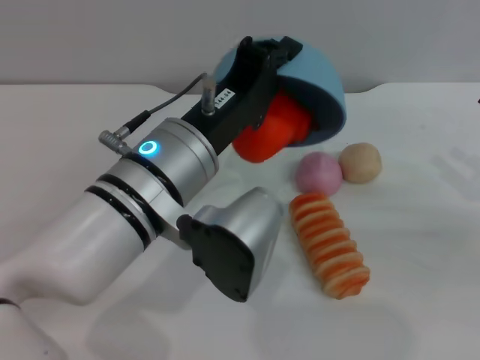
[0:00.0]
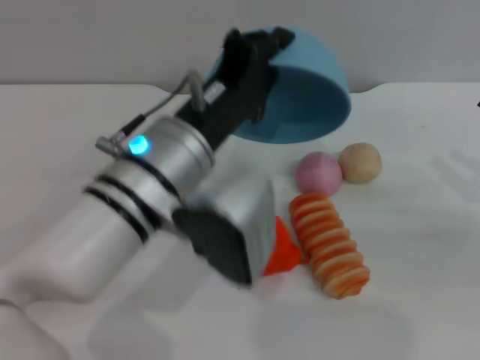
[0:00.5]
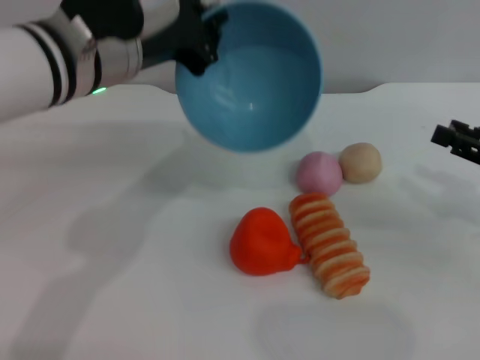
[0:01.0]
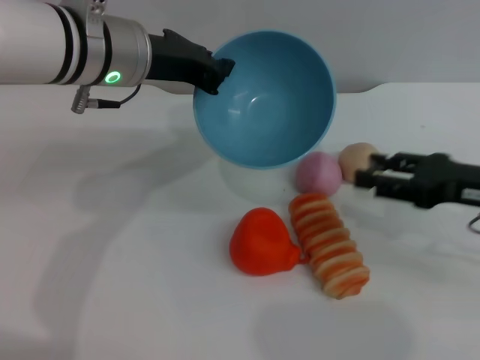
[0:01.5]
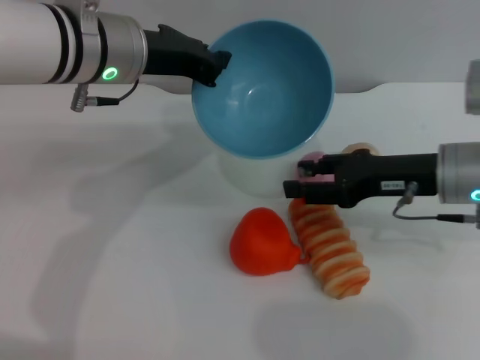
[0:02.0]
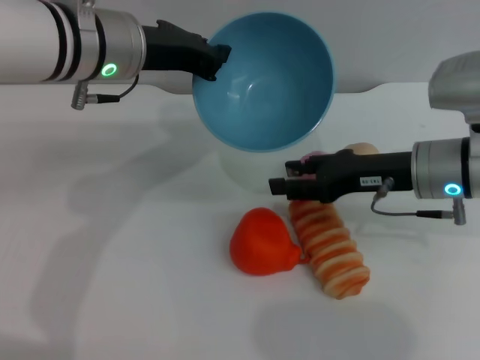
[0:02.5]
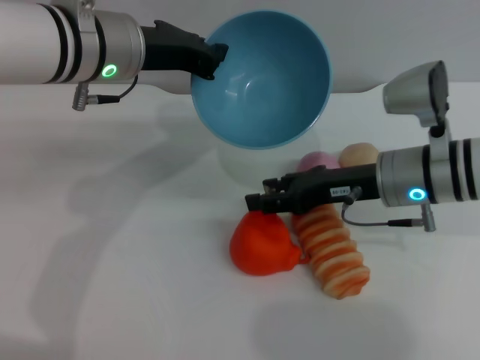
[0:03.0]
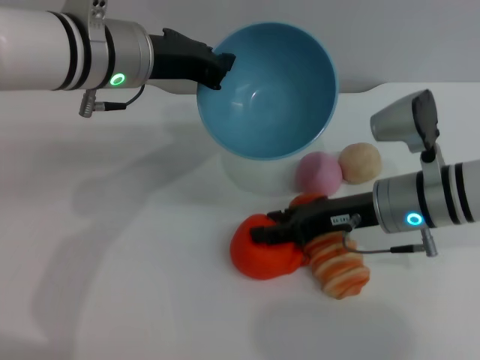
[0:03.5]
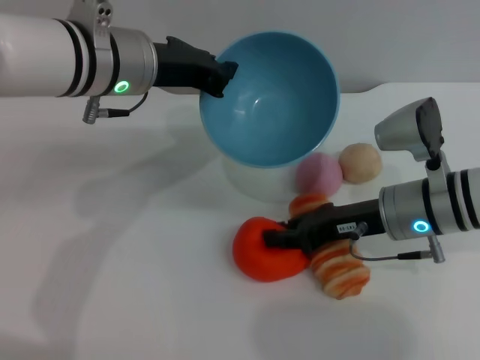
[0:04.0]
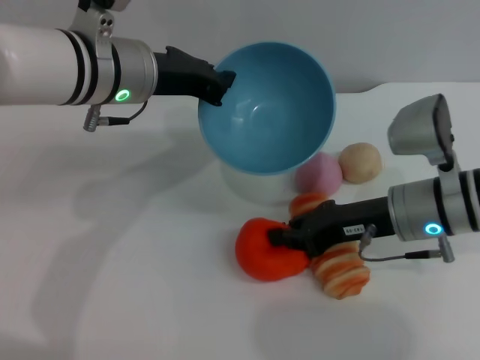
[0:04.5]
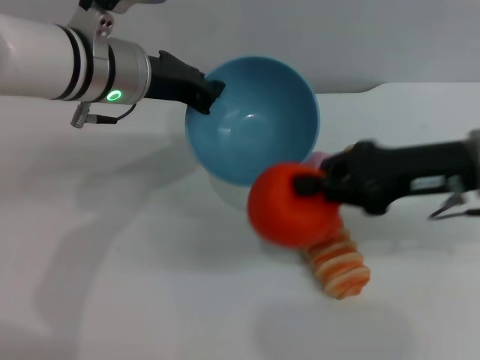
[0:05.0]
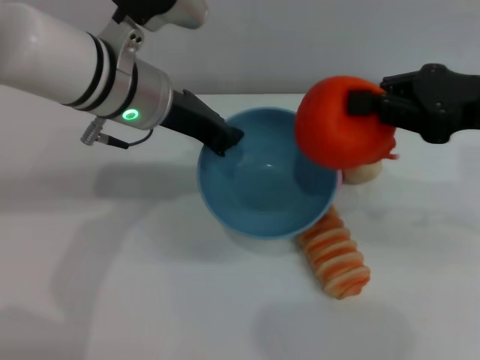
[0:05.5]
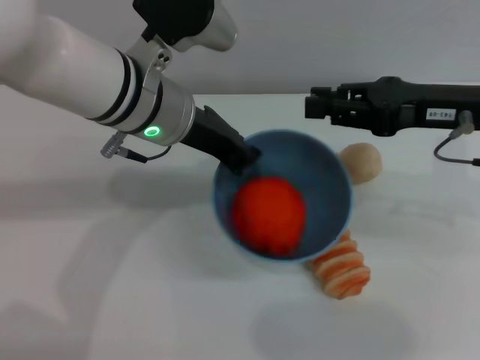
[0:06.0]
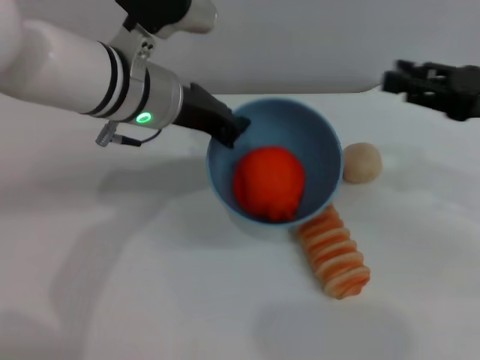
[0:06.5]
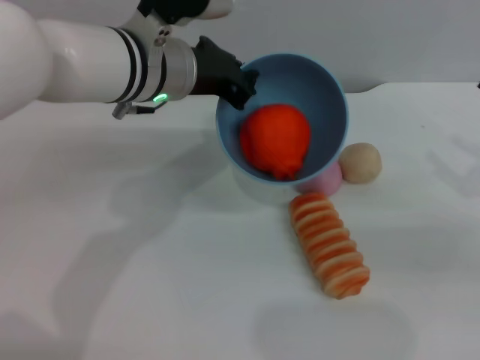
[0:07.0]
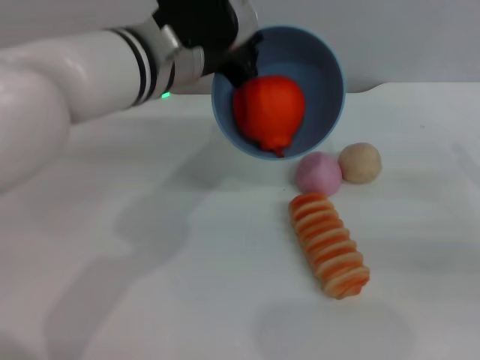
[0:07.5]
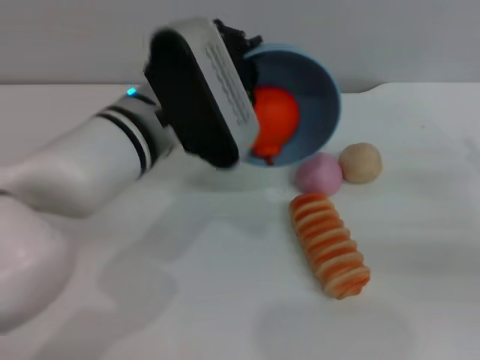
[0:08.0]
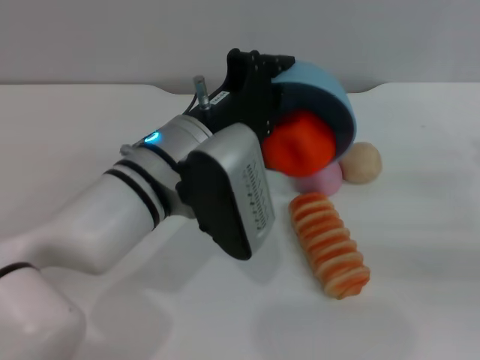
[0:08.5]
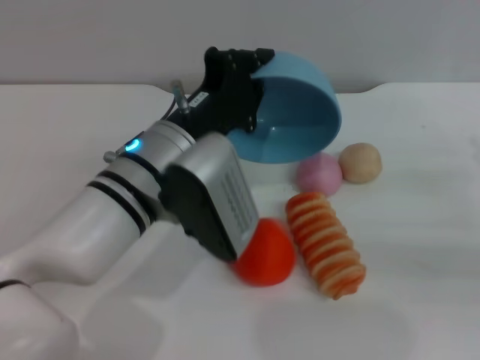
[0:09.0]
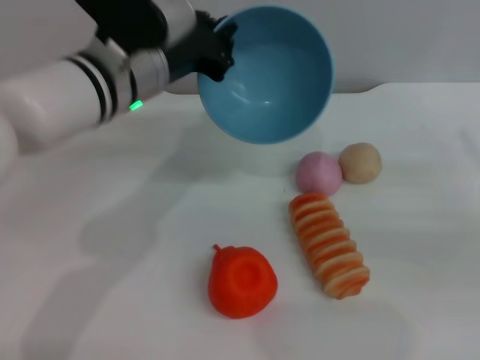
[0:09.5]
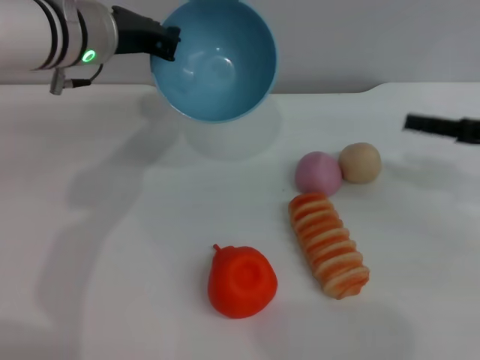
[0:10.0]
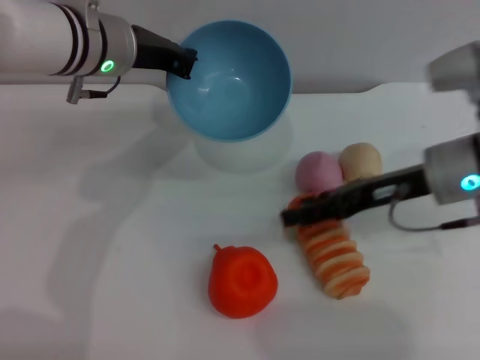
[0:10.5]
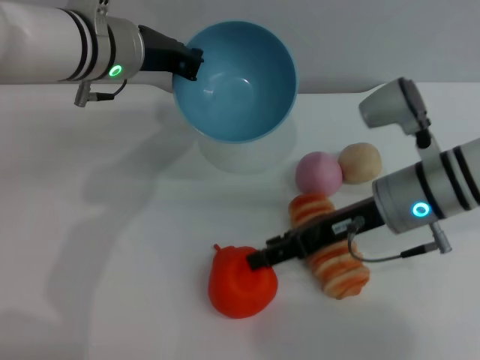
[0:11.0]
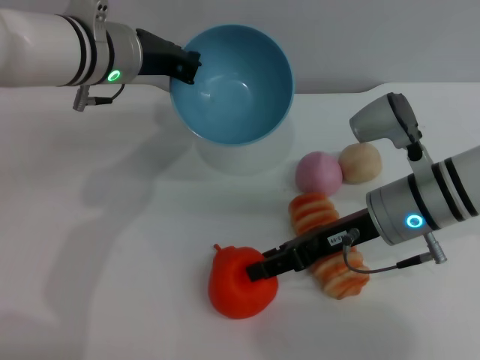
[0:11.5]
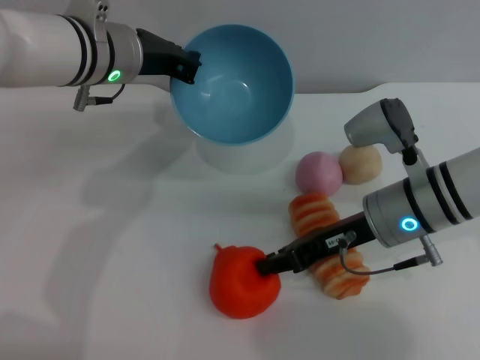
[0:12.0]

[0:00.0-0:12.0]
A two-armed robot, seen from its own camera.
Task of the whole recording: put the orange into the blue bowl and pour it out repeatedly.
Step, 0:01.0 to 0:05.0: Pick up the orange with the right gripper.
Step, 0:05.5 to 0:06.0: Place the orange into the bowl.
Step, 0:06.5 to 0:09.0: Pour the orange out of the bowl.
0:00.0 to 0:02.0: The right gripper travels to the left and forward by some 15 cm; the left gripper goes some 15 cm forward, to the left and upward.
0:02.0 to 0:04.0: The right gripper changes place by about 5 cm.
0:04.0 to 0:06.0: The right gripper shifts about 15 cm upward and to the right, and closes.
0:06.0 to 0:08.0: The right gripper is displaced to the right, downward and backward by about 20 cm, and opens its fingers.
0:08.0 to 0:10.0: The right gripper is displaced forward by approximately 5 cm; the left gripper is displaced forward and to the left by roughly 10 cm.
0:10.0 to 0:12.0: The right gripper shifts some 15 cm to the left, and closes its fingers.

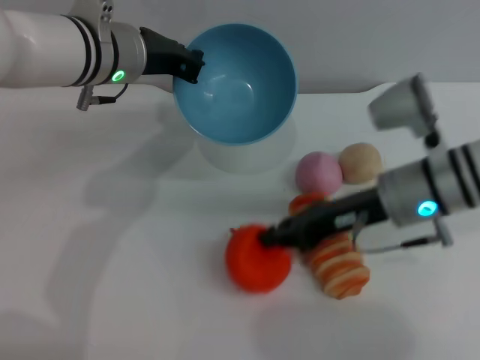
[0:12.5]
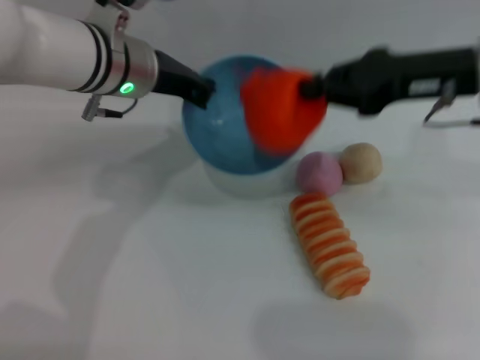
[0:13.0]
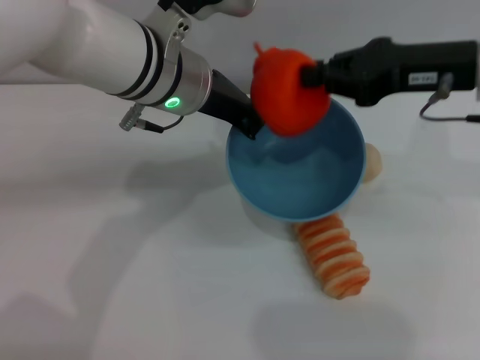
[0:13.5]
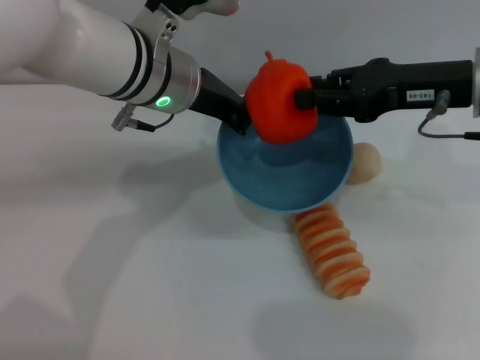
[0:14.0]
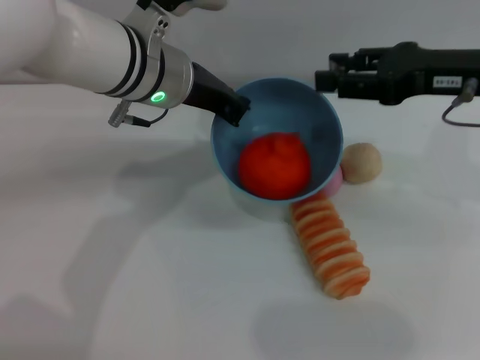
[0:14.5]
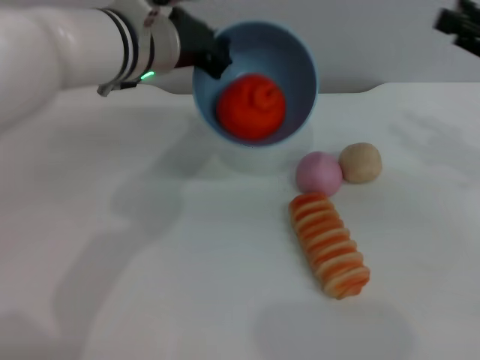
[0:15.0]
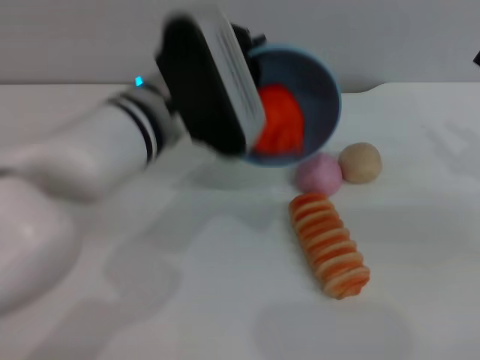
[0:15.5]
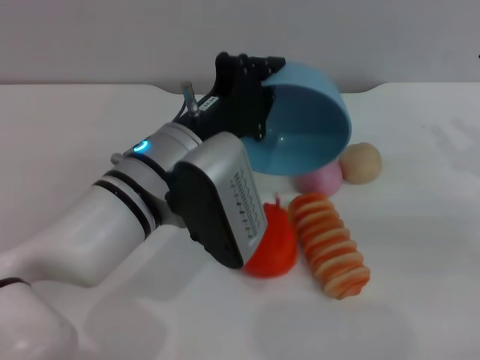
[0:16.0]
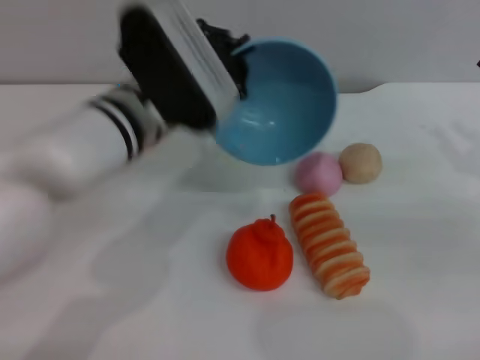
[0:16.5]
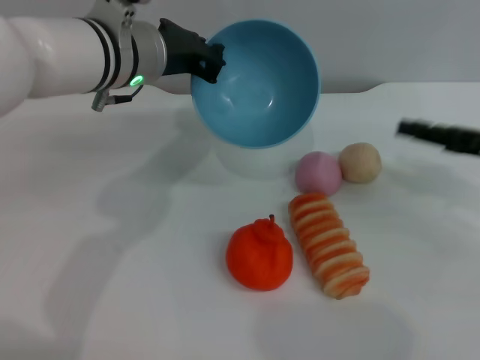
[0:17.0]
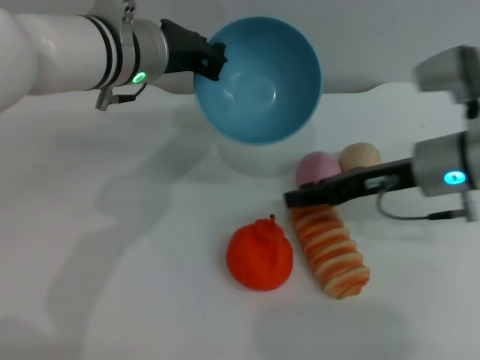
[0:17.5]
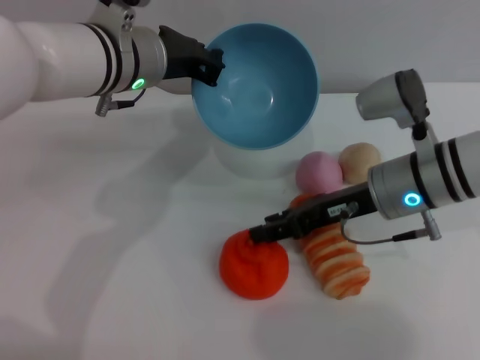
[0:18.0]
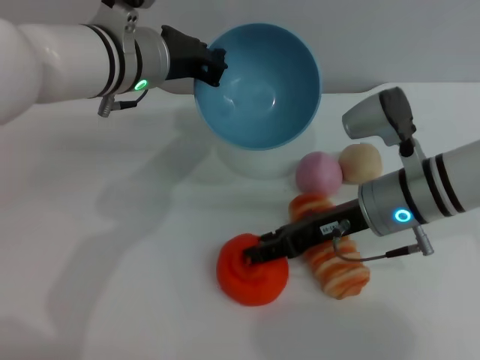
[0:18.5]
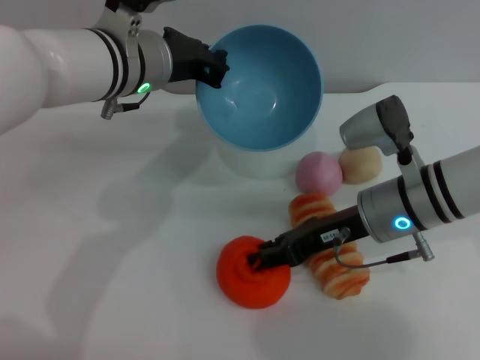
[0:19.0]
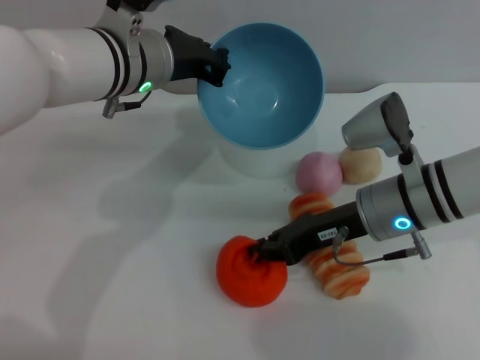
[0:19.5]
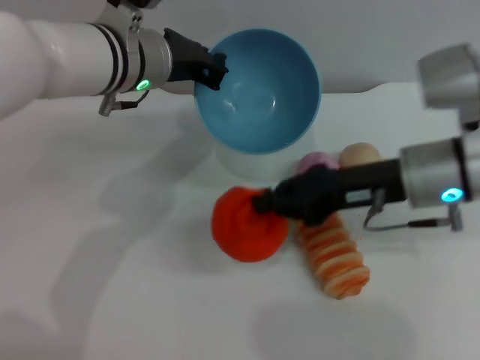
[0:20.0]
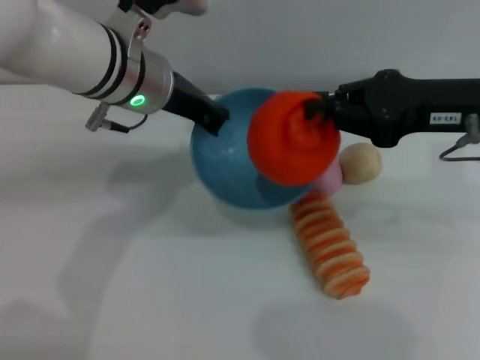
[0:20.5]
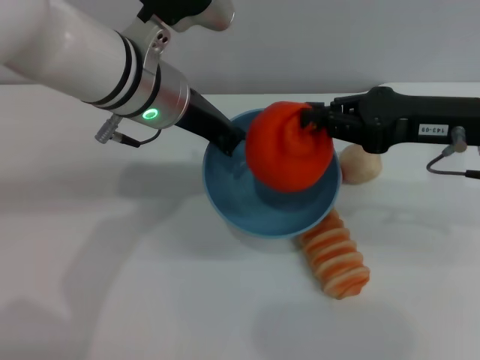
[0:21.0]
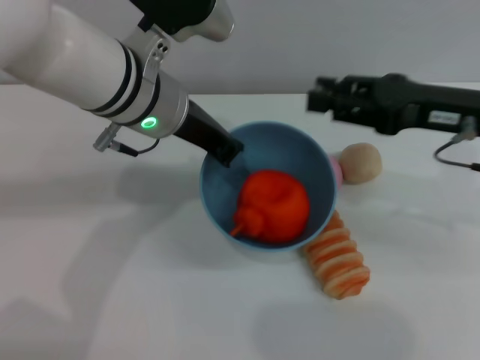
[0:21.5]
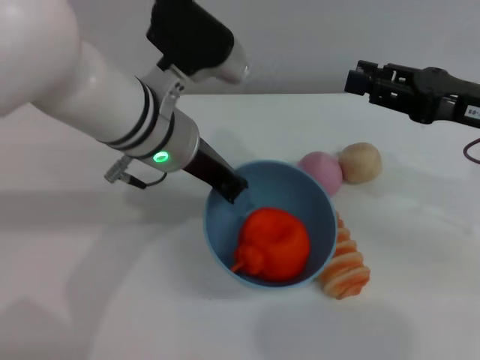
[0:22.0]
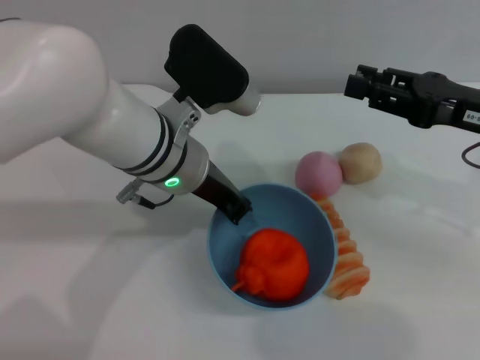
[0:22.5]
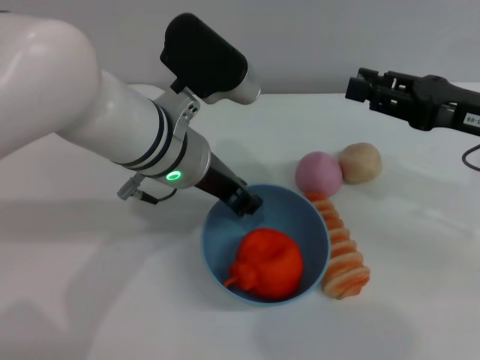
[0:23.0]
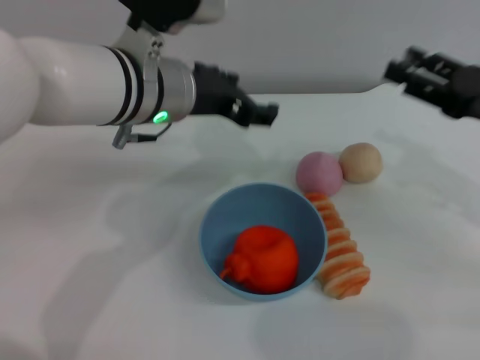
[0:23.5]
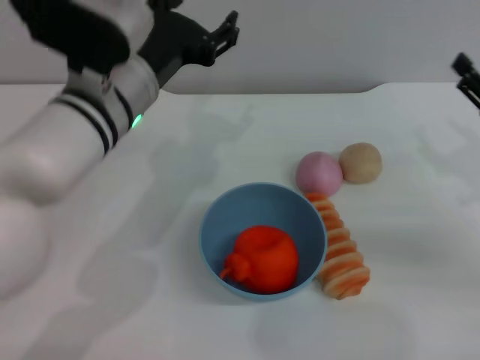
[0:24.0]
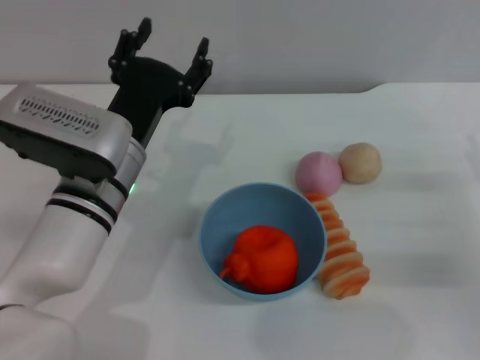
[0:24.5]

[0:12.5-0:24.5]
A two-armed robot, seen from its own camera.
Task of the whole recording: put the orange into the blue bowl and pour it out repeatedly.
Step, 0:13.0 to 0:14.5: Place the orange into the bowl.
Step, 0:15.0 to 0:16.0: Pour the orange out of the bowl.
Step, 0:17.0 to 0:20.0: Pick up the orange with the right gripper.
Step, 0:20.5 to 0:21.0: Place the orange into the bowl.
Step, 0:22.0 to 0:23.0: Place the bowl on the table.
0:12.5 to 0:14.5: The right gripper goes approximately 15 cm upward and to the right, and opens. Meanwhile the left gripper moves about 5 cm.
0:14.5 to 0:16.5: The right gripper goes roughly 15 cm to the right, downward and backward, while the left gripper shifts approximately 5 cm backward.
0:16.5 to 0:18.5: The right gripper heads to the left, covering some 20 cm. Meanwhile the left gripper goes some 5 cm forward.
0:18.5 to 0:20.5: The right gripper is displaced upward and to the right by about 15 cm, and closes.
0:20.5 to 0:22.5: The right gripper changes place by about 5 cm, and opens. Meanwhile the left gripper ends up approximately 5 cm from where it was.
0:22.5 to 0:24.5: The left gripper travels downward by roughly 5 cm, and opens, while the right gripper shifts about 15 cm downward, to the right and backward, and opens up.
